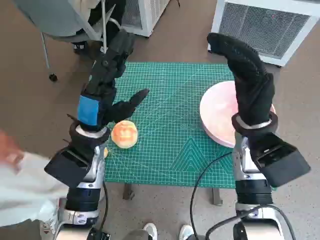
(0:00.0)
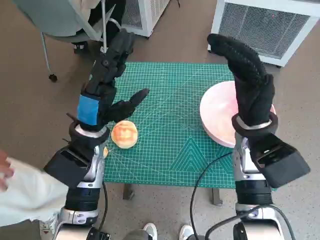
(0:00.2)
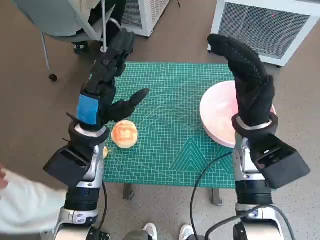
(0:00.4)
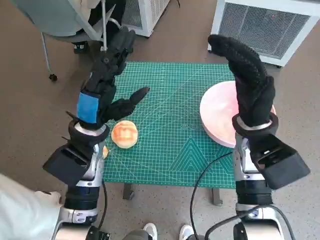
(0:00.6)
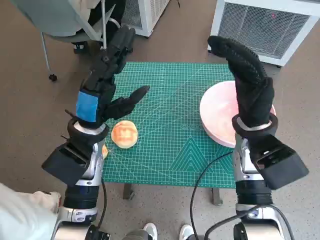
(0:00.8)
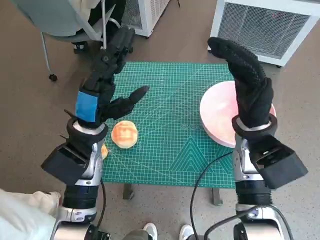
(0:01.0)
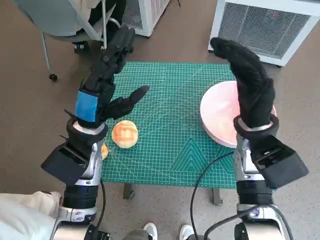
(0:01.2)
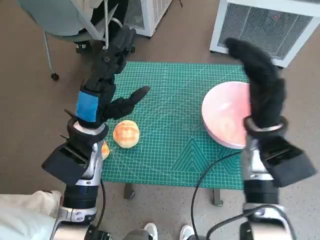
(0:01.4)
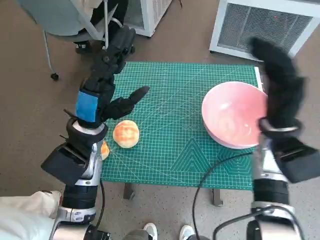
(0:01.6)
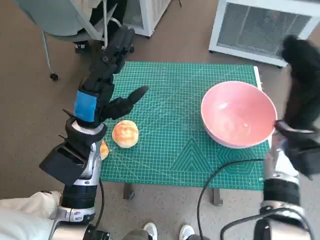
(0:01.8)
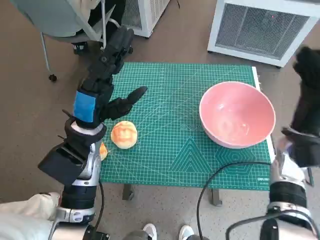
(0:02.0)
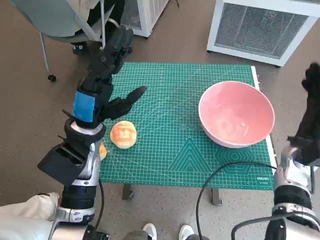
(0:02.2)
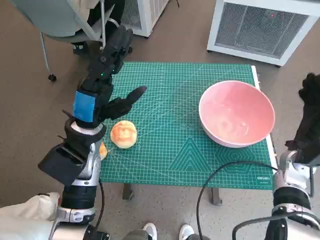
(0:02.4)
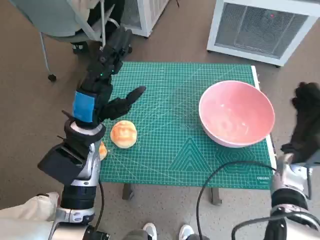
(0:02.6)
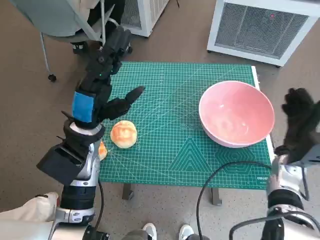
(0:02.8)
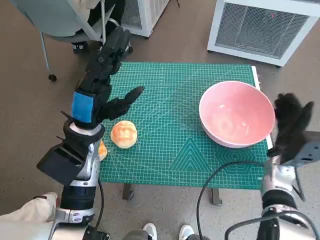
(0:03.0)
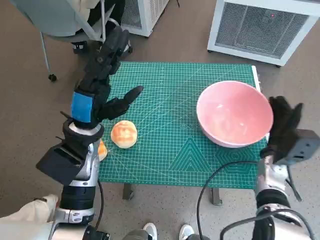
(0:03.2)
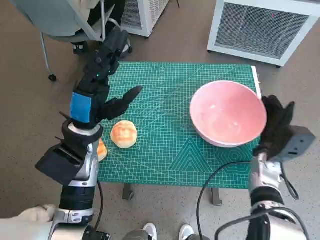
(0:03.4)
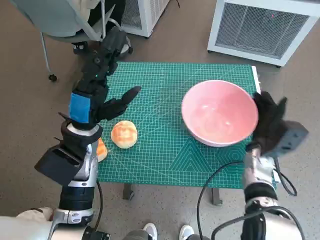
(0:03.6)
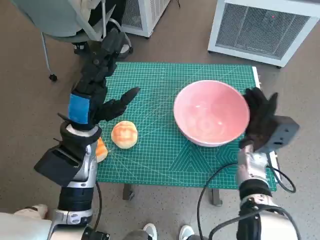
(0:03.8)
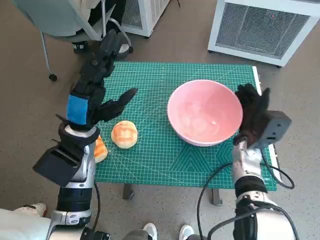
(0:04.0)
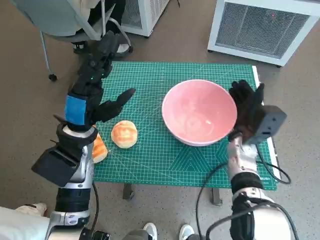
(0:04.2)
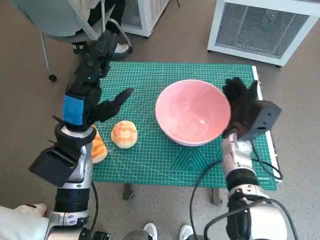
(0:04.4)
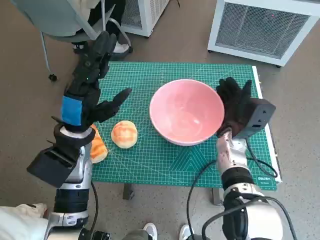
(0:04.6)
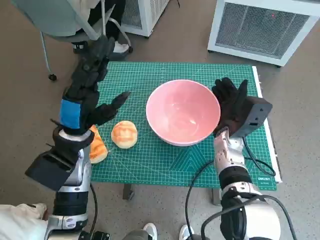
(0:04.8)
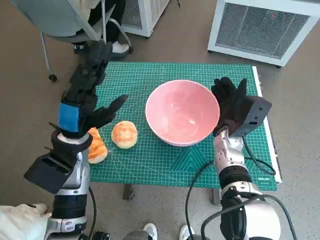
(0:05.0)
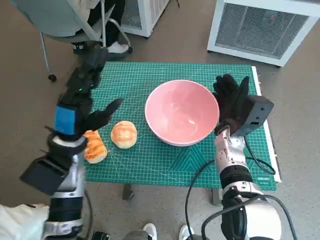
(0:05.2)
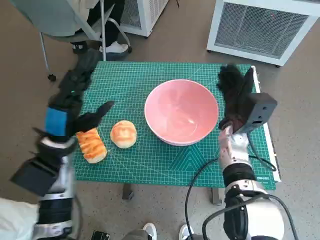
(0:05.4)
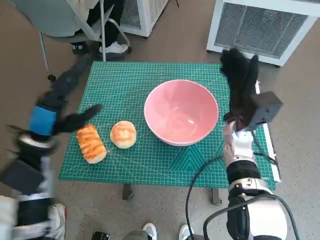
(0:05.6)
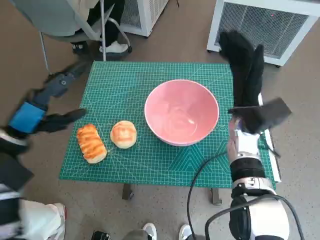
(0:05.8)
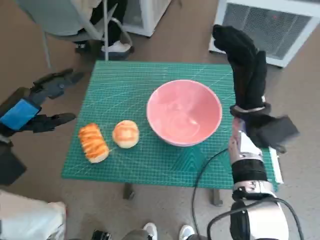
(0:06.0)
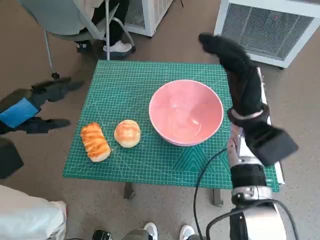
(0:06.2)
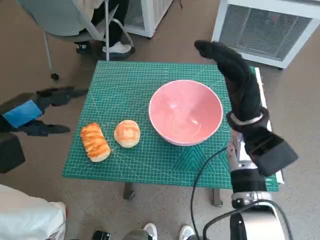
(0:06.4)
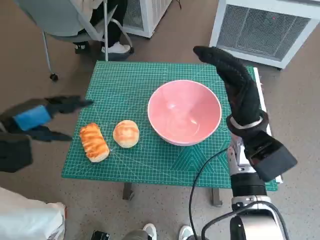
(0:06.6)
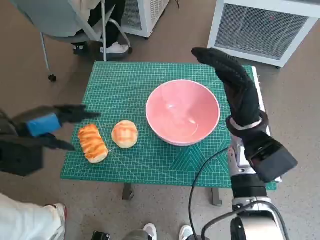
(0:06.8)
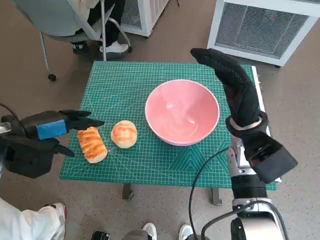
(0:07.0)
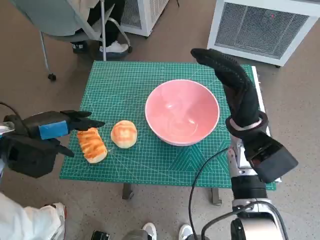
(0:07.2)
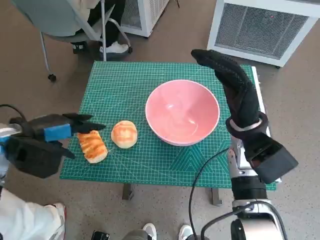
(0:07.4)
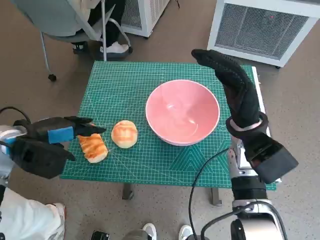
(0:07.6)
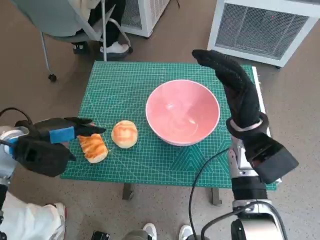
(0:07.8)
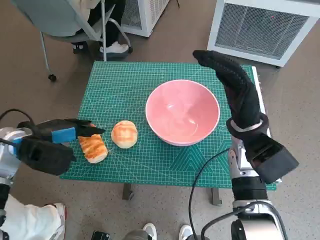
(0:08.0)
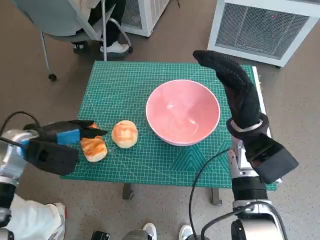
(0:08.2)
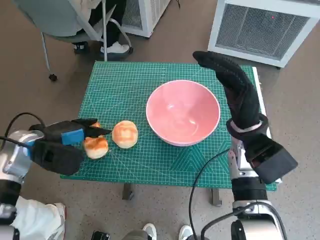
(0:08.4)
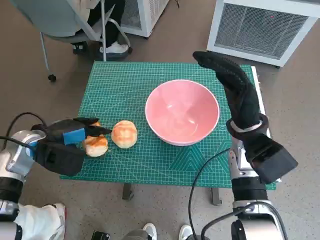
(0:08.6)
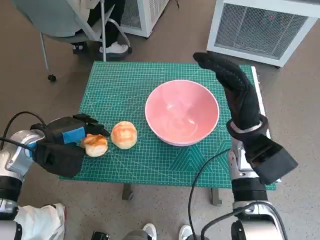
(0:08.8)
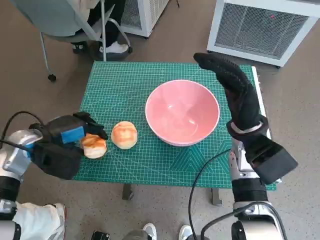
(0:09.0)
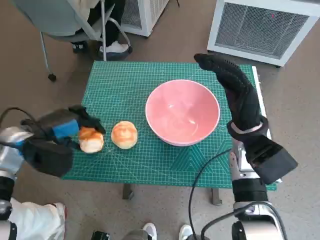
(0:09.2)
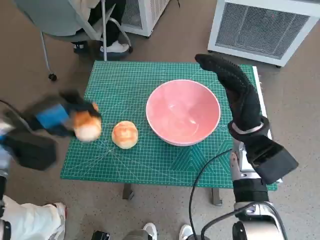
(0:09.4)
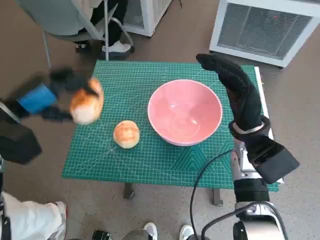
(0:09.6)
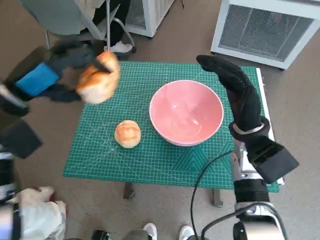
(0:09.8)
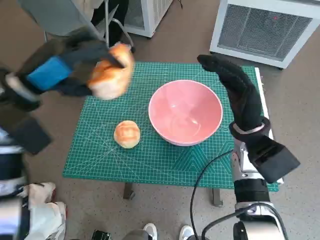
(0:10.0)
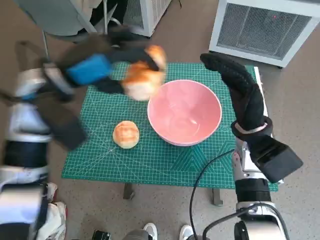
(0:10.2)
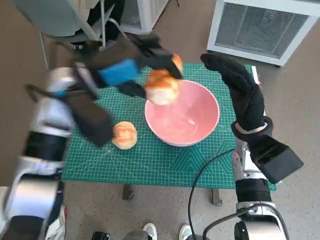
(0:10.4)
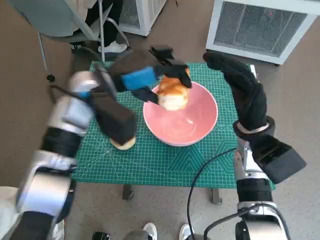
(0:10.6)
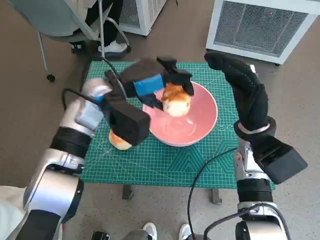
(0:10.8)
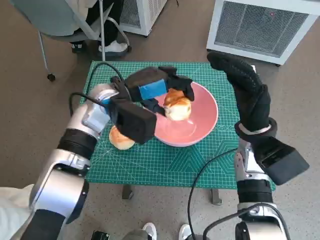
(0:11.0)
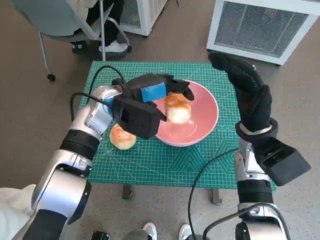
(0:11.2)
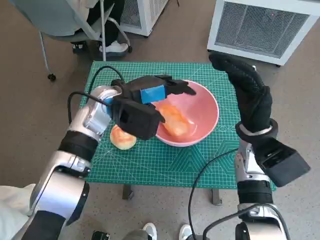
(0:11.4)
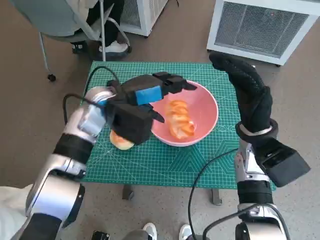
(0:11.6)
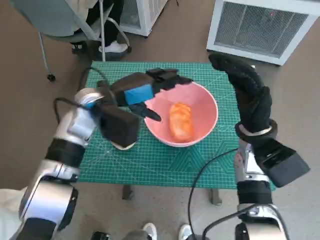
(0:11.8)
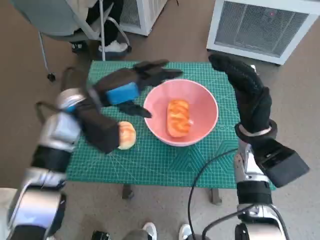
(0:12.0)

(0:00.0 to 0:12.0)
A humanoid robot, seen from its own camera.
Task of the whole recording: Push the bowl to the center of the table and put the bread into the bowl.
Step, 0:00.0 - 0:05.2: Move the pink bowl to the center of table with right hand.
Step, 0:05.4 - 0:08.6: Grasp the long bread with left hand.
Step, 0:08.8 - 0:11.4: Place the long bread in pink bowl with left hand.
0:01.6 - 0:03.0: The right hand goes some 10 cm downward and to the right.
0:03.0 - 0:04.4: The right hand is displaced to the left by approximately 10 cm.
0:04.4 - 0:06.0: The left hand heads to the left, covering some 15 cm, while the right hand heads upward, covering some 10 cm.
0:07.6 - 0:09.0: The hands stay close to where they were, moving slightly.
0:09.0 - 0:10.4: The left hand goes about 20 cm upward and to the right.
0:10.4 - 0:12.0: The left hand is displaced downward by approximately 5 cm.

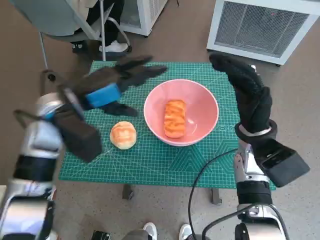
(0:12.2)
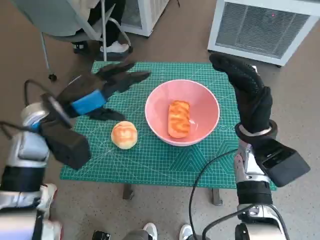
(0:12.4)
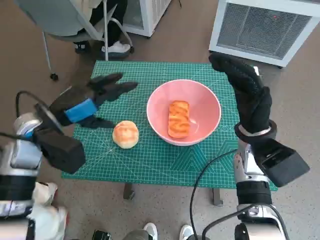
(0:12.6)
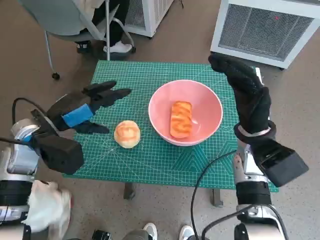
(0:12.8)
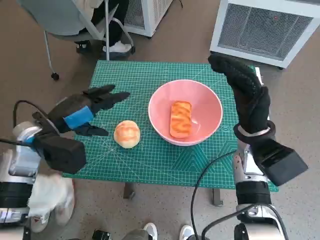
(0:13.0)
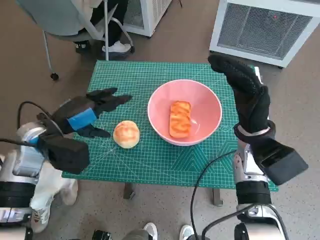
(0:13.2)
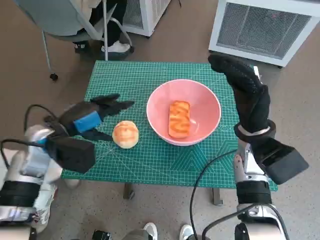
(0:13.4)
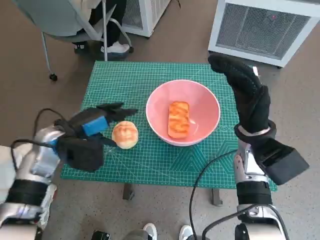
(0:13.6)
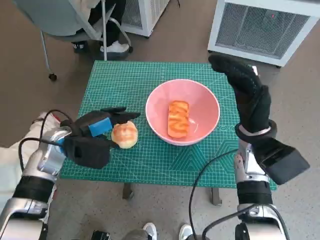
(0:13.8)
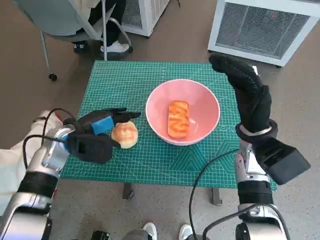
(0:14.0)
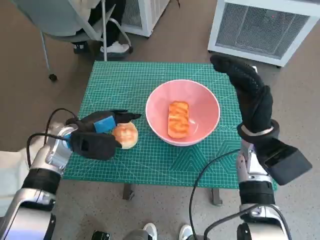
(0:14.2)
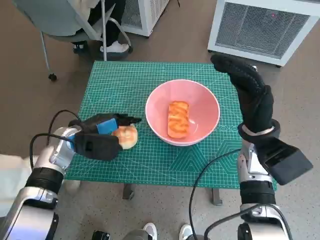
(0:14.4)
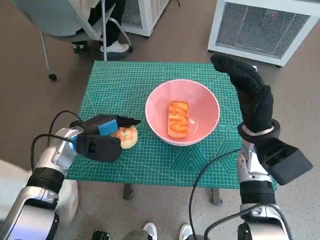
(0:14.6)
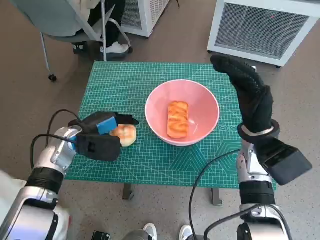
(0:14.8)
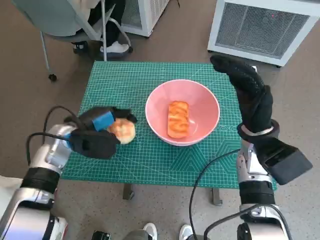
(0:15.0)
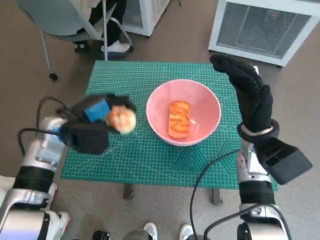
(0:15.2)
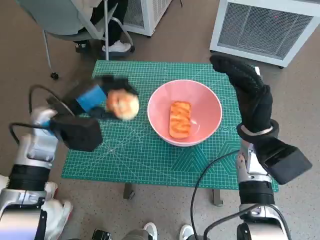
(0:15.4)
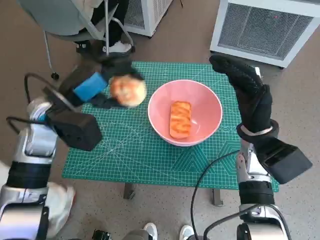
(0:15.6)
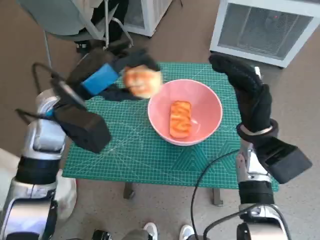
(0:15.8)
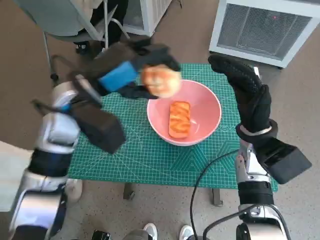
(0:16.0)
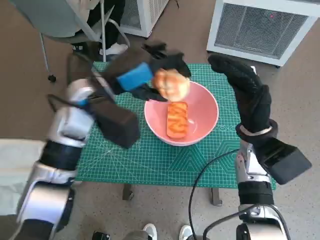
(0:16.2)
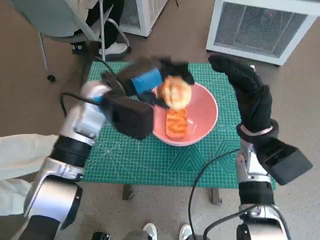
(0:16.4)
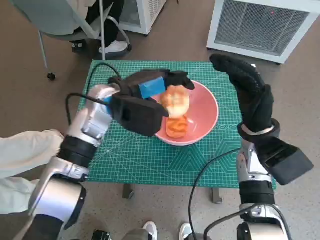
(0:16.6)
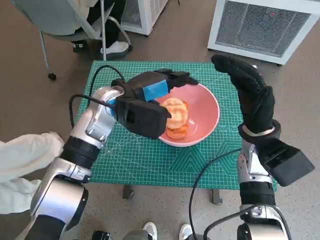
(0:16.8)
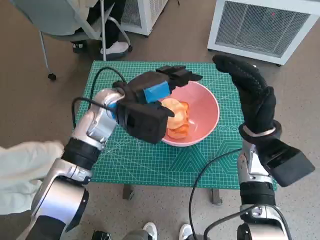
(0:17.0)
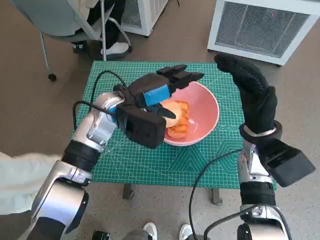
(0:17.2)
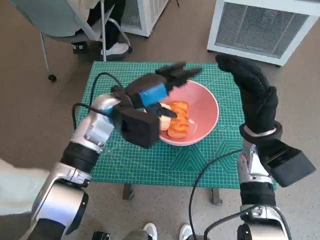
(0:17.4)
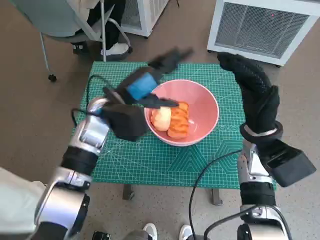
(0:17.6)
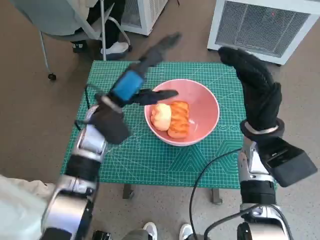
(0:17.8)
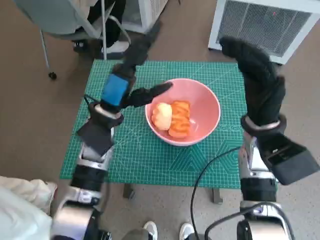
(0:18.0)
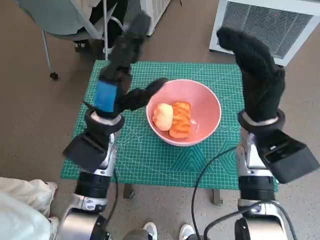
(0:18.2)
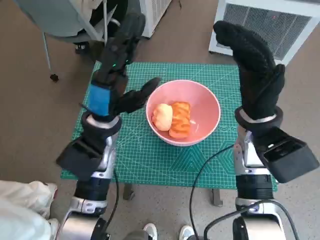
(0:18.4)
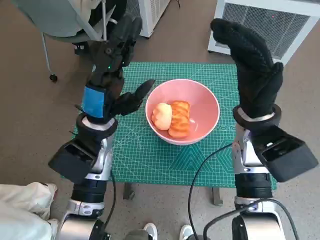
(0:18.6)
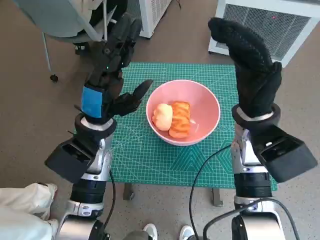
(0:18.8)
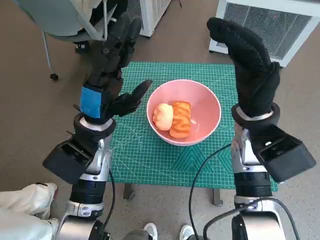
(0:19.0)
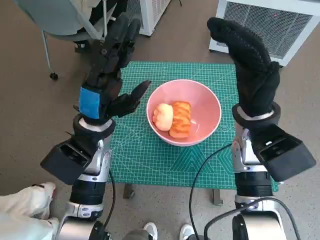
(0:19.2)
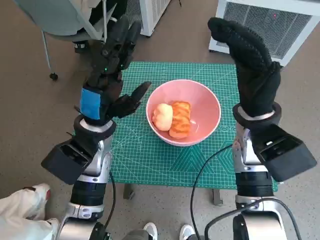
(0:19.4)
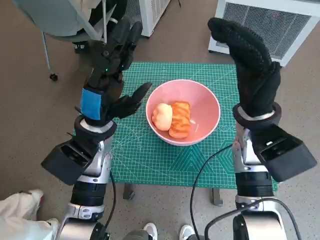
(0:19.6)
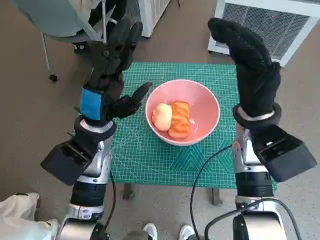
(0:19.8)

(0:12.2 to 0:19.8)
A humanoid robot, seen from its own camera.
Task of the whole recording: Push the bowl to the center of the table and put the bread into the bowl.
Step, 0:12.2 - 0:14.8: Grasp the round bread with left hand.
Step, 0:15.0 - 0:17.2: Place the round bread in pink bowl with left hand.
0:12.2 - 0:13.8: The left hand travels downward by some 10 cm.
0:13.8 - 0:15.2: The hands stay close to where they were, moving slightly.
0:15.2 - 0:16.8: The left hand moves to the right and upward, some 15 cm.
0:16.8 - 0:18.2: The left hand moves about 5 cm.

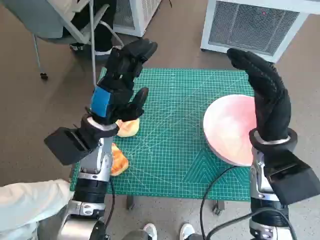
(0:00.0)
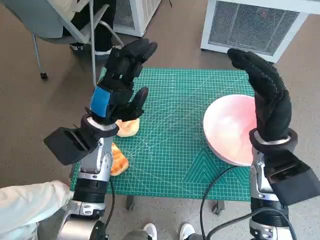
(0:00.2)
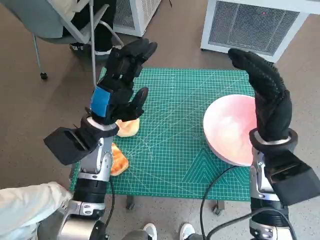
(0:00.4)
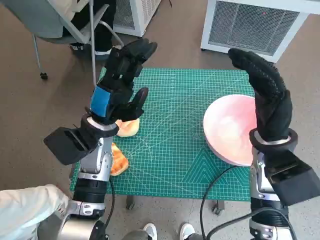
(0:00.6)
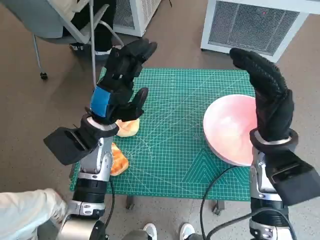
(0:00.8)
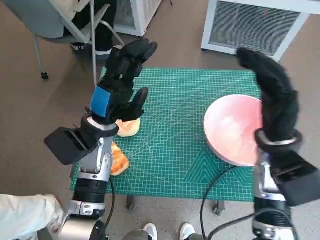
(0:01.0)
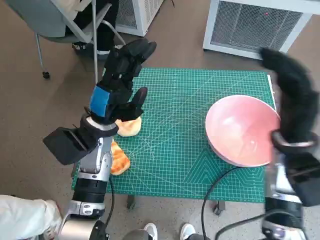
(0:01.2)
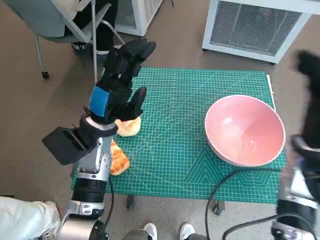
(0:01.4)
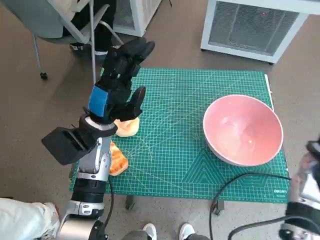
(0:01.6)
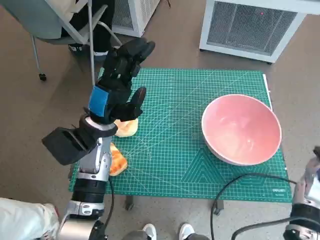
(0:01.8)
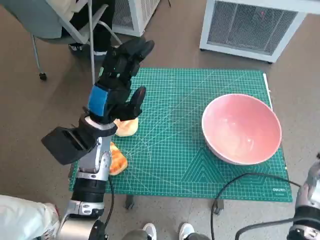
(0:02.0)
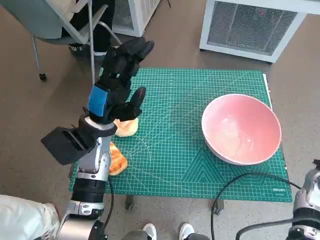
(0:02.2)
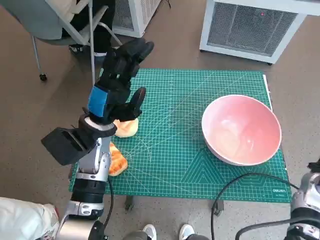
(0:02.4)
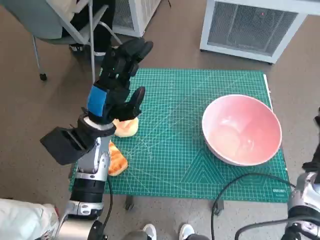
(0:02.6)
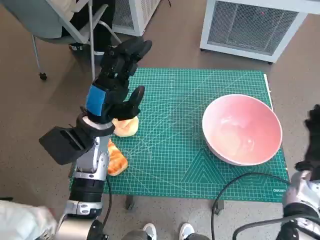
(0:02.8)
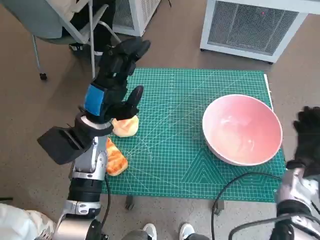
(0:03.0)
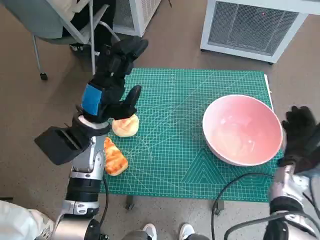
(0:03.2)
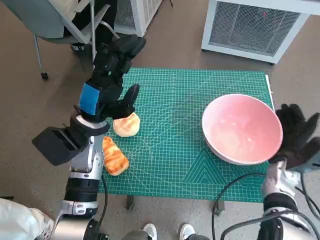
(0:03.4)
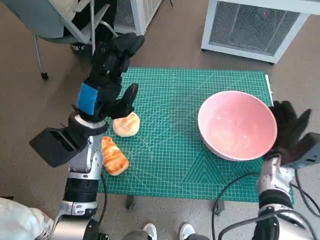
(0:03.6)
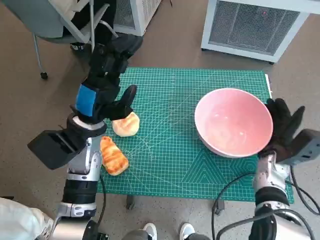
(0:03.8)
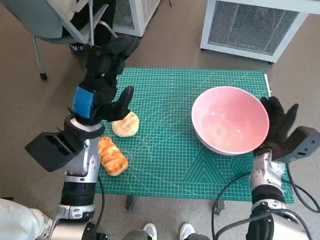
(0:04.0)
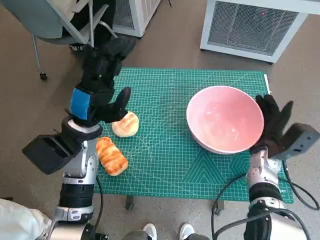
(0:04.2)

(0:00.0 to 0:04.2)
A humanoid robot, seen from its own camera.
Task of the whole recording: Push the bowl to the center of the table and put the bread into the bowl.
0:01.4 - 0:02.8: The right hand is displaced downward and to the right by some 15 cm.
0:02.8 - 0:04.2: The right hand shifts about 10 cm to the left.
